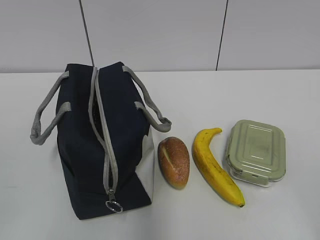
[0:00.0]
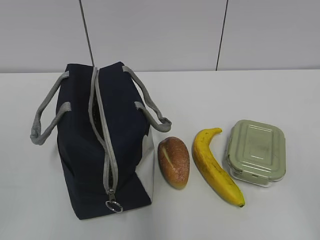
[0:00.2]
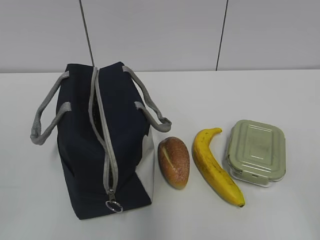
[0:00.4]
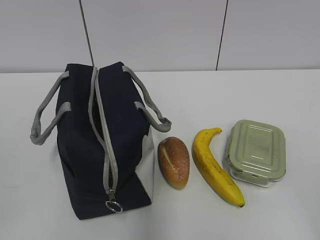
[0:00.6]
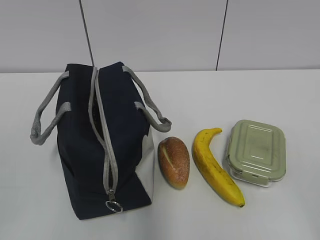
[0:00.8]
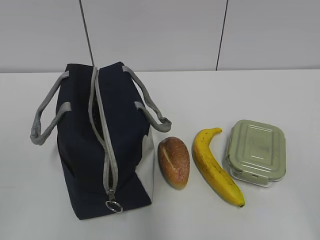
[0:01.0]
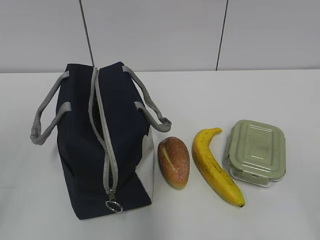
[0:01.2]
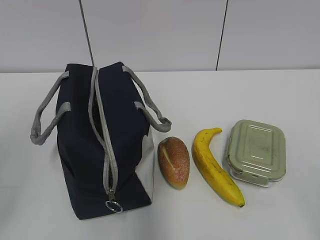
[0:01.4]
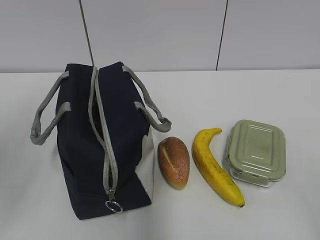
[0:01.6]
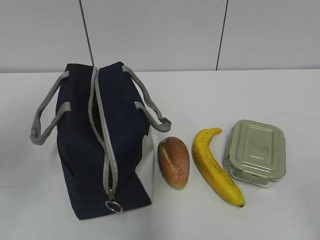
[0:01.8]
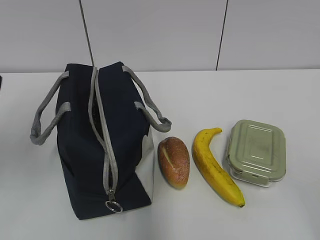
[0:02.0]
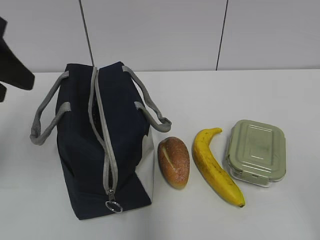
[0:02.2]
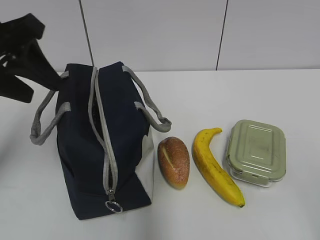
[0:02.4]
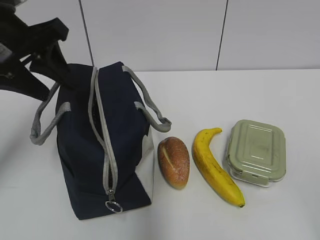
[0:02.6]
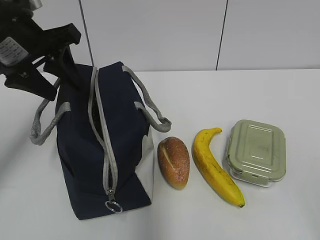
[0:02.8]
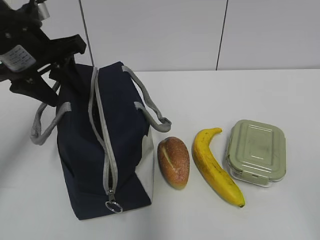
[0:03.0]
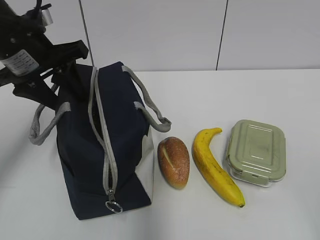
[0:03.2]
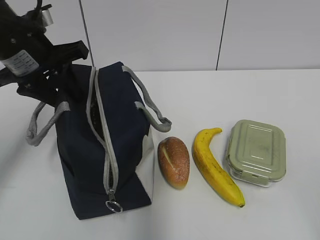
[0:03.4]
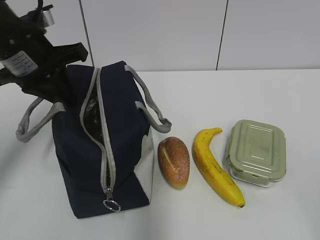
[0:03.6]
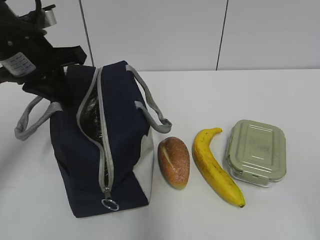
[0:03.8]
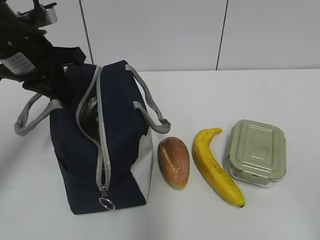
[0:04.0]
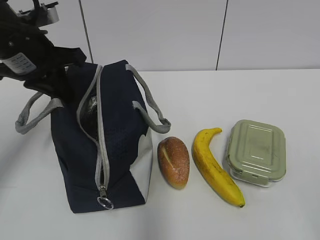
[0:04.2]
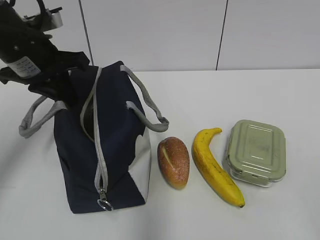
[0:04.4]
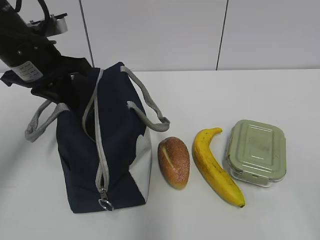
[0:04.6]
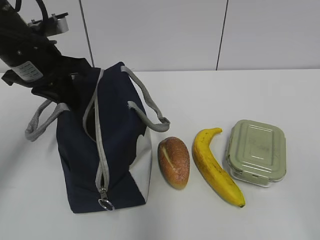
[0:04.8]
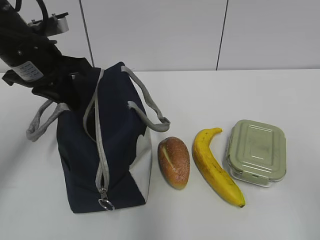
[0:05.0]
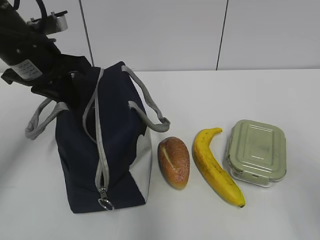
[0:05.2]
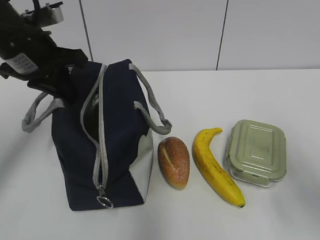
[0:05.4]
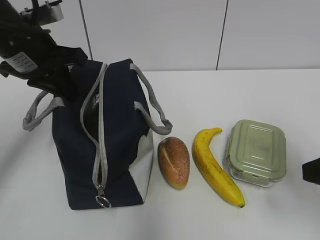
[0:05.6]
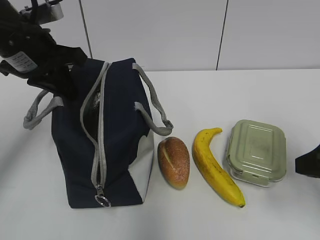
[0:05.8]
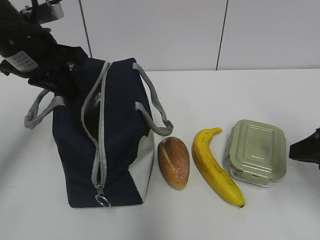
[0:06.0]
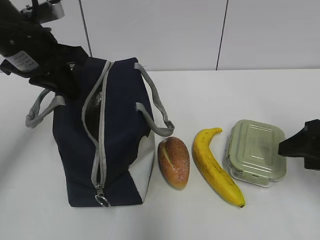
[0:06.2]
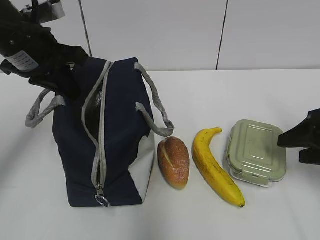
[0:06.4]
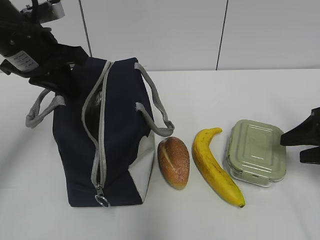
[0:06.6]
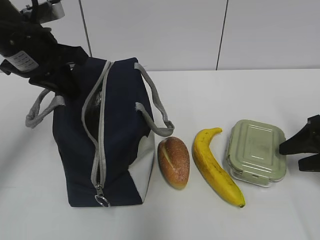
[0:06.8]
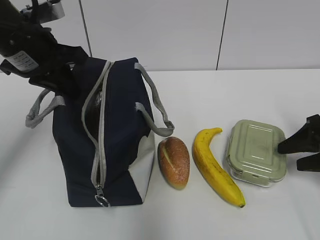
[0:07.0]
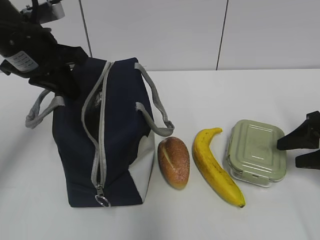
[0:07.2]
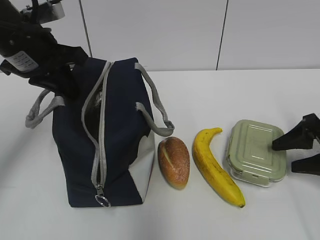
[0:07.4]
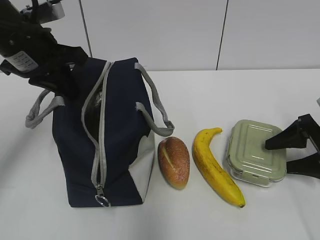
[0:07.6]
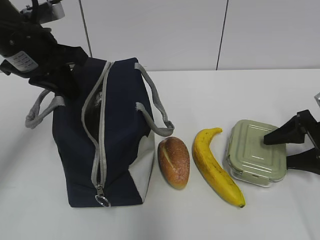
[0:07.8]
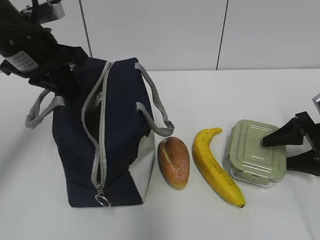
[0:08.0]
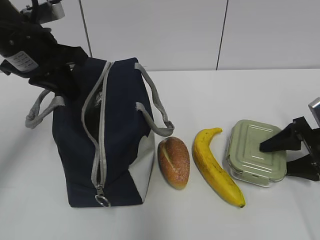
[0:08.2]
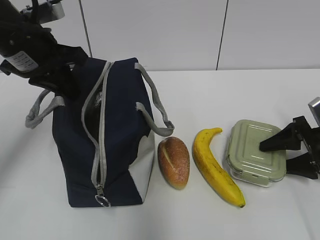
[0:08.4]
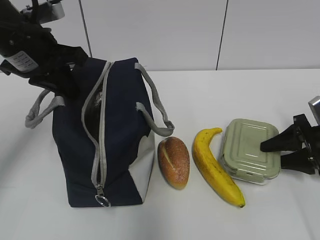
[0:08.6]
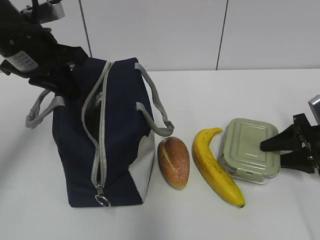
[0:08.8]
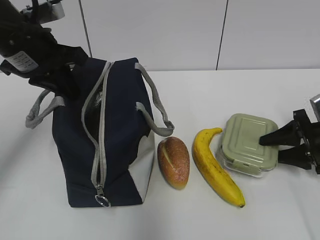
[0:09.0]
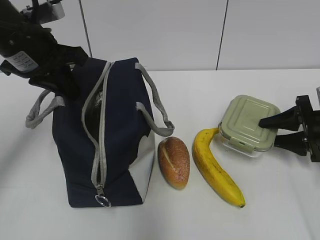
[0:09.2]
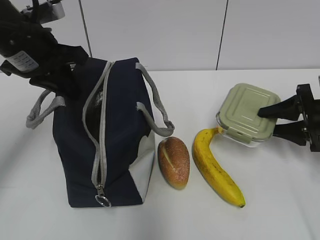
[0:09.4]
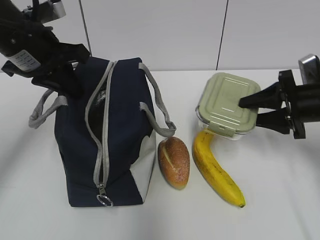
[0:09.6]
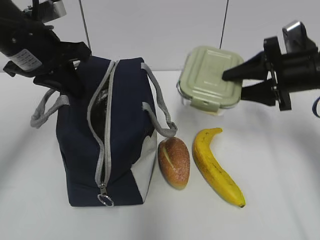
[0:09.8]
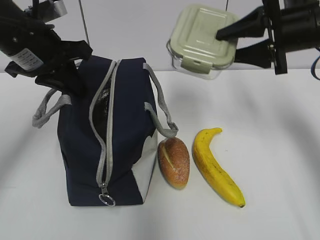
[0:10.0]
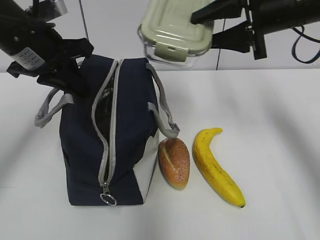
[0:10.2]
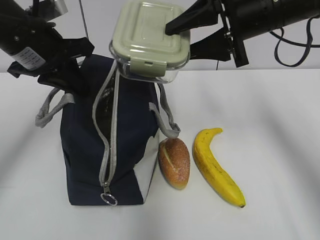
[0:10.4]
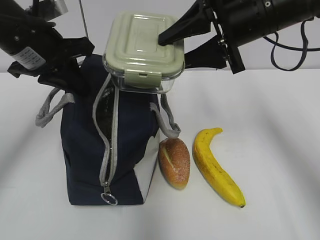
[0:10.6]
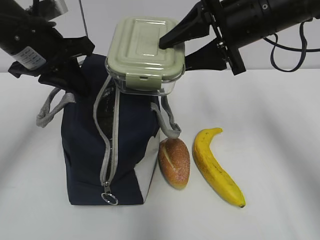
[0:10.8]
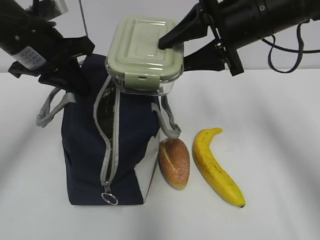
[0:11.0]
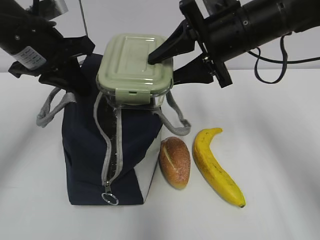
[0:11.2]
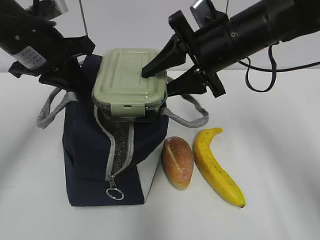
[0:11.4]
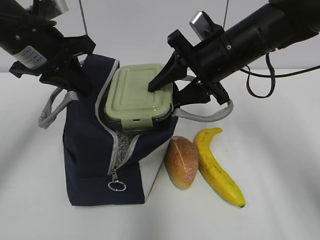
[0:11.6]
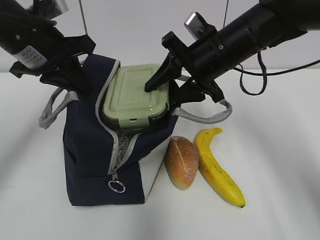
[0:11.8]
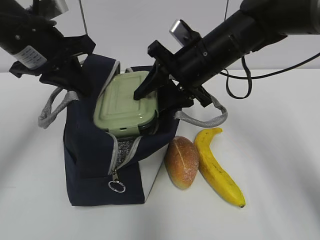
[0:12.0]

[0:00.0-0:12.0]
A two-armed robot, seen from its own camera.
Step, 0:00.0 to 0:08.2: Grab the lunch box with your right hand.
0:01.6 to 0:03.0: The left gripper heads forward and to the right, covering approximately 20 cm.
0:03.0 to 0:04.4: The left gripper closes.
0:04.4 to 0:06.0: The right gripper shifts some 20 cm forward.
0:06.0 to 0:07.6: The right gripper goes roughly 15 cm forward, downward and to the right.
0:07.6 to 0:09.0: The right gripper closes its fingers.
0:09.0 to 0:10.4: The right gripper heads upward and to the left, covering roughly 25 cm.
0:10.4 to 0:12.0: The right gripper goes about 10 cm downward and to the left.

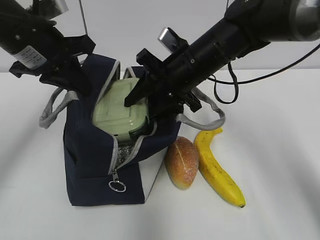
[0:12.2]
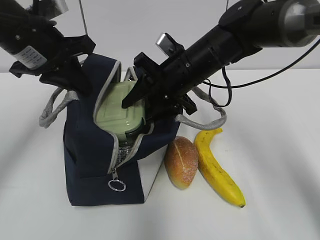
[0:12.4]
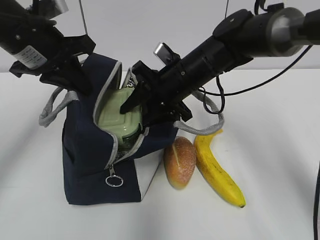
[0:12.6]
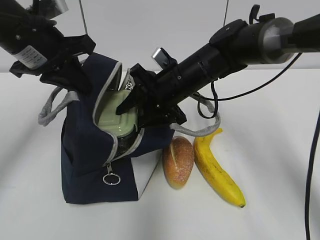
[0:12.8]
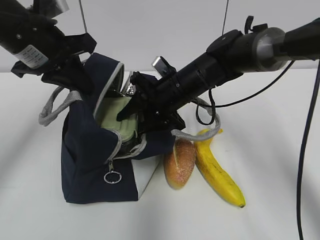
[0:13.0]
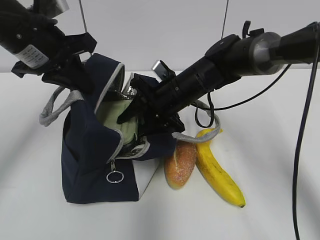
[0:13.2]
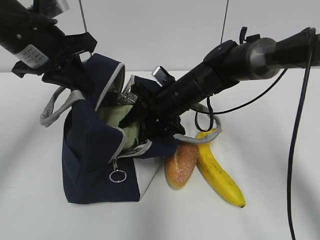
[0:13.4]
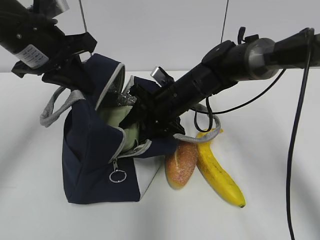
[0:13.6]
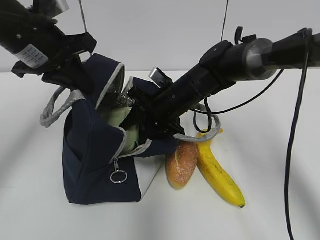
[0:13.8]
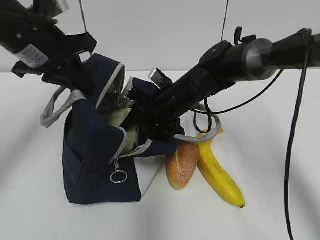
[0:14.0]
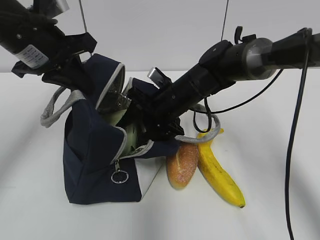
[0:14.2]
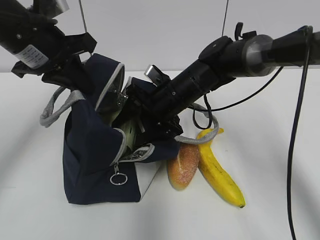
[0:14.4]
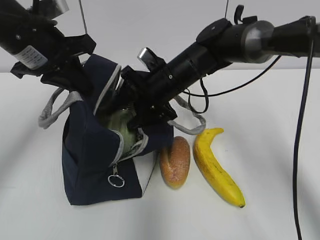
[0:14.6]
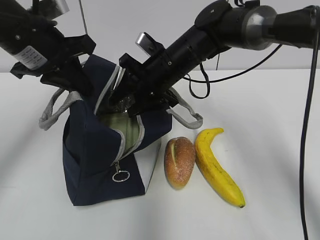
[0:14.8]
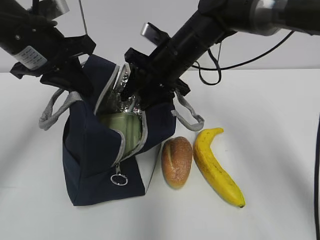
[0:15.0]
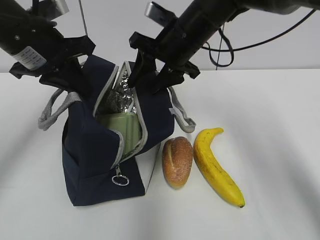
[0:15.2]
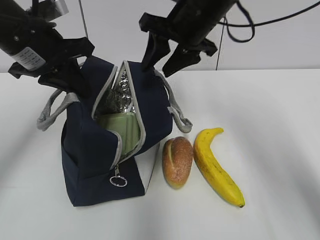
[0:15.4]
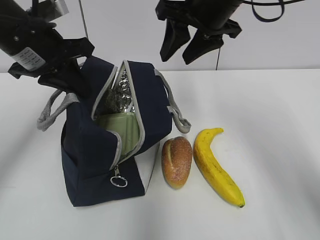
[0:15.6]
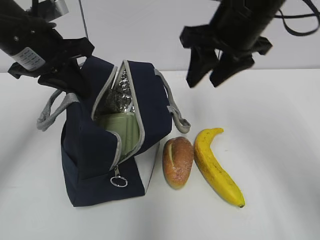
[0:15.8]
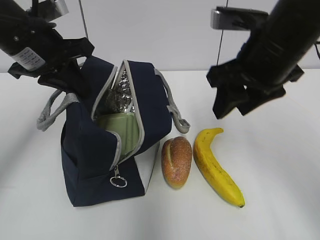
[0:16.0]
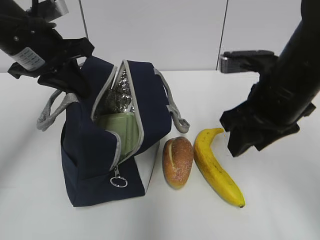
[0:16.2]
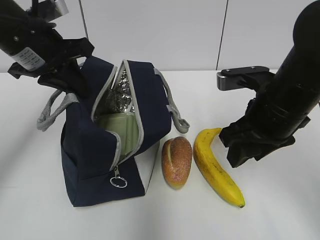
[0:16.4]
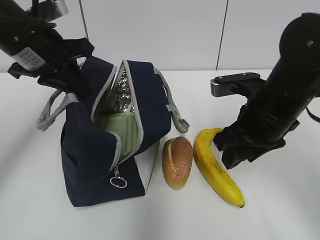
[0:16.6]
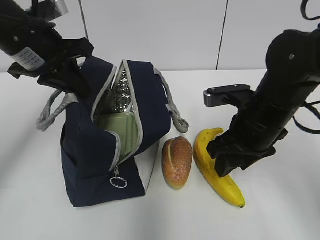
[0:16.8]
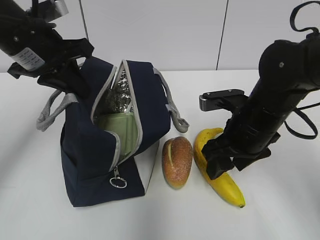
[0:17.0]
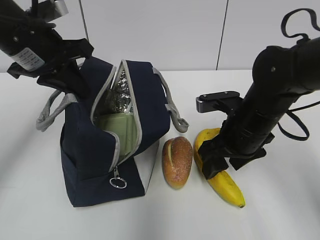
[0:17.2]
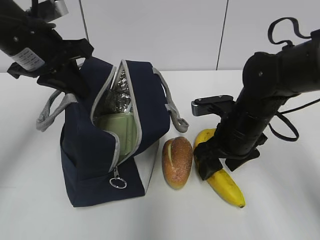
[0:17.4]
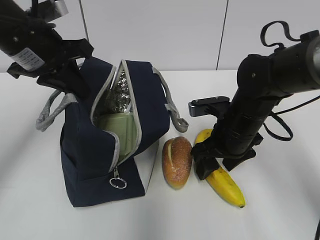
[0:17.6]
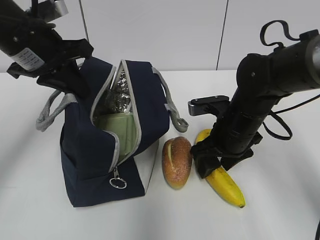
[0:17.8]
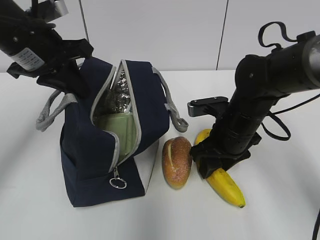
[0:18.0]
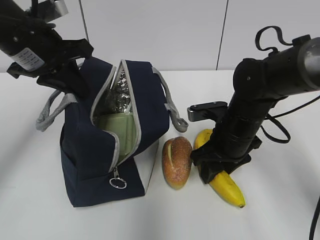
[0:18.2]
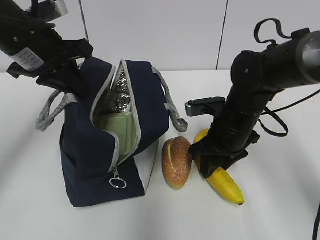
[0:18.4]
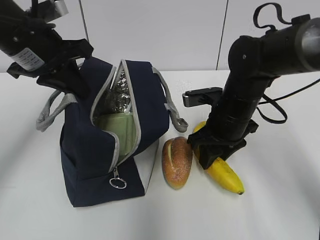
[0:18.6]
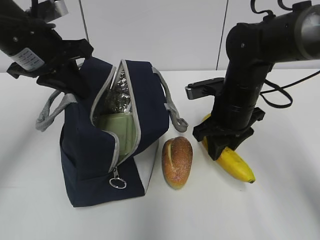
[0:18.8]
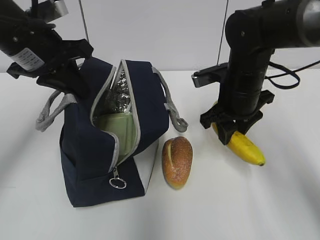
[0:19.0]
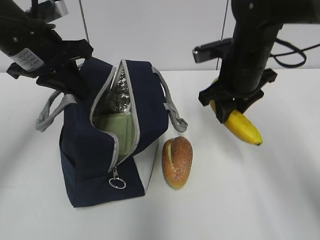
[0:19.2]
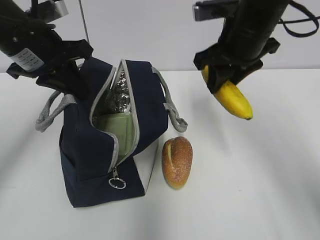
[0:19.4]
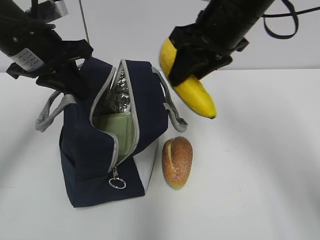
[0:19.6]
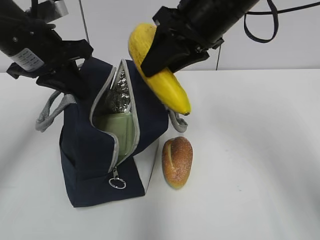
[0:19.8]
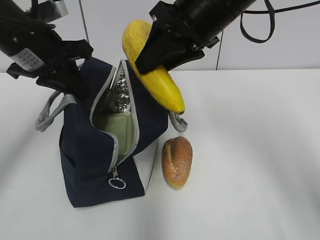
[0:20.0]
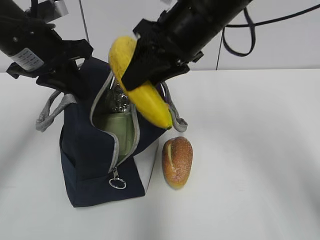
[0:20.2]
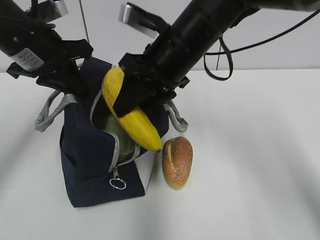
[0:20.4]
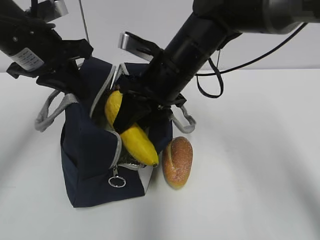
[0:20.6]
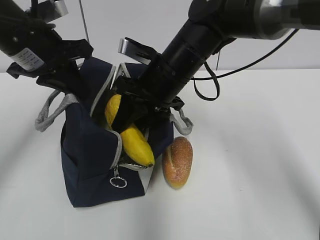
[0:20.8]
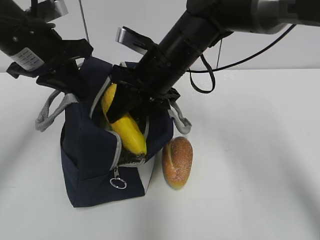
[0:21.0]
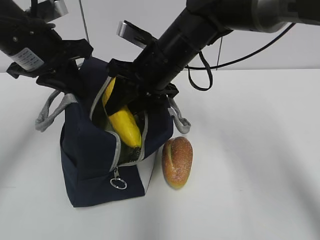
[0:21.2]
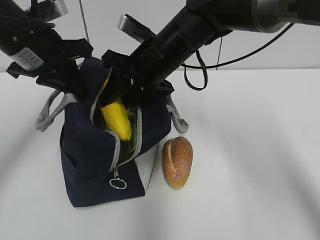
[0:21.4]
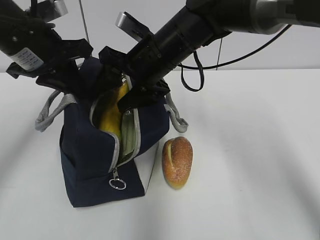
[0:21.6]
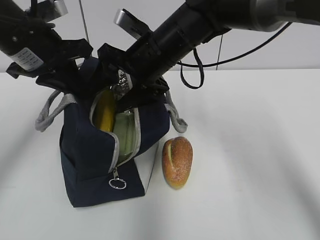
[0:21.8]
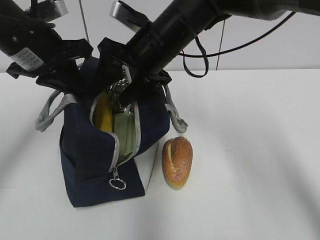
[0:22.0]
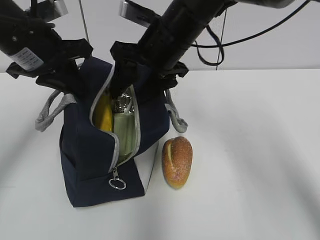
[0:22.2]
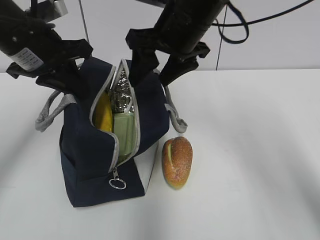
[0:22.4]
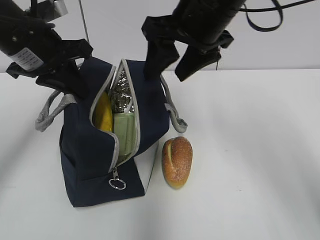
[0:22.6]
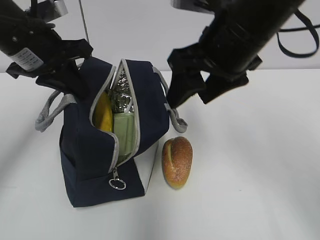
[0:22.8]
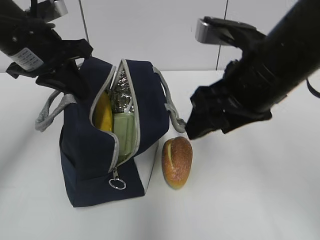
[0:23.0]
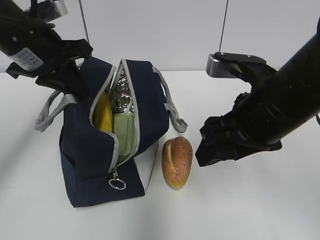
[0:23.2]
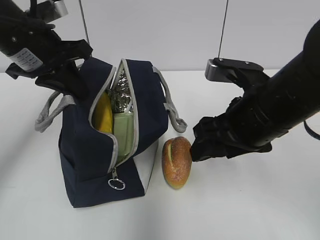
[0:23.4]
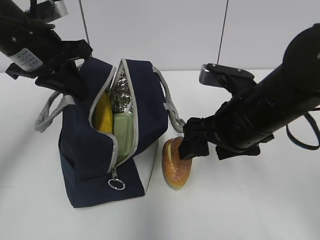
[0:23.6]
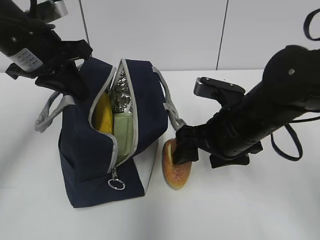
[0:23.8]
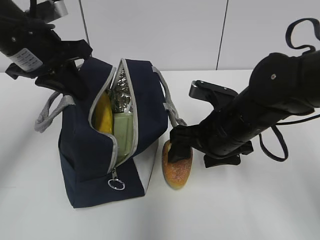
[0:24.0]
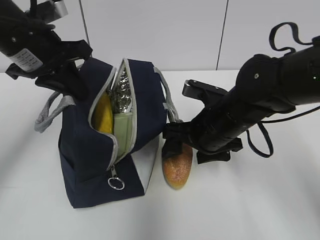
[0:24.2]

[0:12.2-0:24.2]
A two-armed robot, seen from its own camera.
Step, 0:12.2 to 0:15.2: Place it into the bag with your right hand.
Step, 0:15.4 to 0:18.4: Grab the banana with your right hand.
Step, 0:18.6 to 0:22.0: Place it into the bag with your right hand.
0:12.2 to 0:13.8: The right gripper goes about 10 cm downward.
0:13.8 to 0:15.2: The right gripper shifts approximately 10 cm upward.
0:15.2 to 0:16.6: The right gripper moves backward and to the right, some 15 cm.
0:16.6 to 0:18.2: The right gripper moves downward, approximately 10 cm.
0:18.2 to 0:19.8: The right gripper goes about 20 cm upward.
0:19.8 to 0:21.2: The right gripper goes about 10 cm downward and to the left.
0:21.2 to 0:22.6: The right gripper travels upward by about 10 cm, and opens up.
0:22.6 to 0:24.2: The right gripper goes some 15 cm downward.
